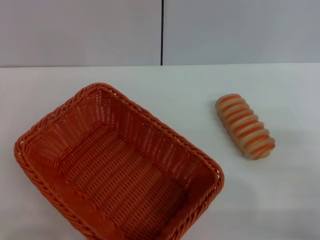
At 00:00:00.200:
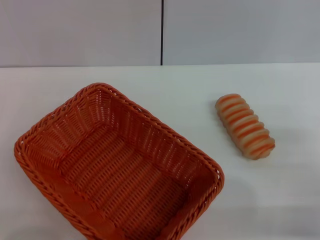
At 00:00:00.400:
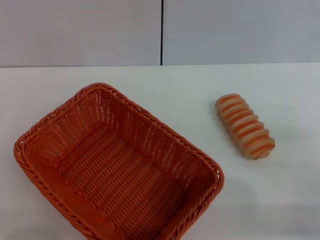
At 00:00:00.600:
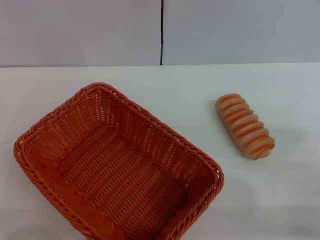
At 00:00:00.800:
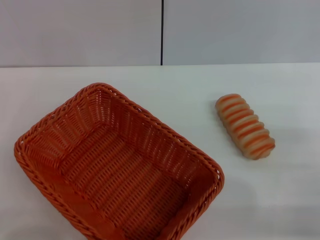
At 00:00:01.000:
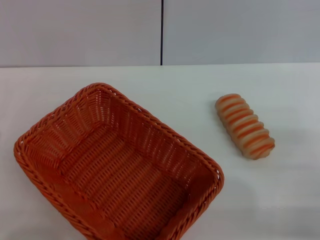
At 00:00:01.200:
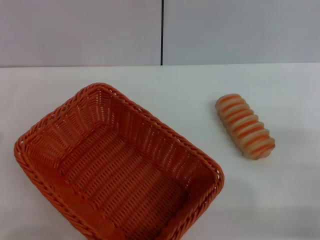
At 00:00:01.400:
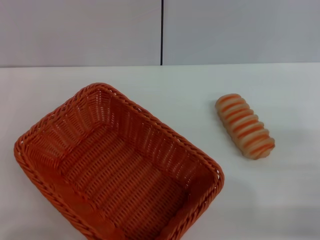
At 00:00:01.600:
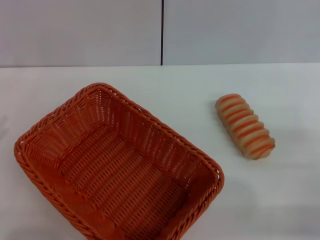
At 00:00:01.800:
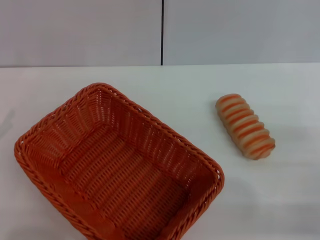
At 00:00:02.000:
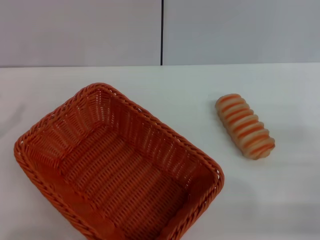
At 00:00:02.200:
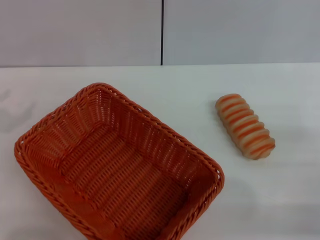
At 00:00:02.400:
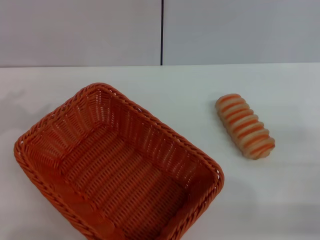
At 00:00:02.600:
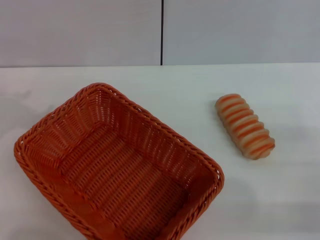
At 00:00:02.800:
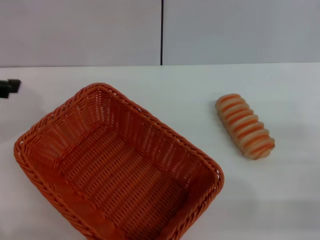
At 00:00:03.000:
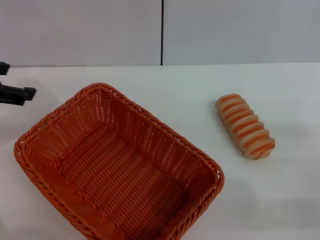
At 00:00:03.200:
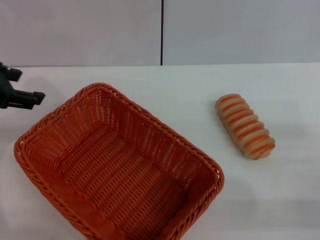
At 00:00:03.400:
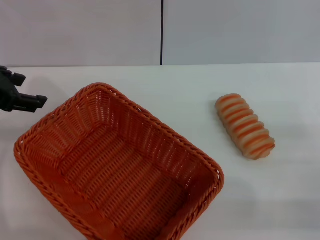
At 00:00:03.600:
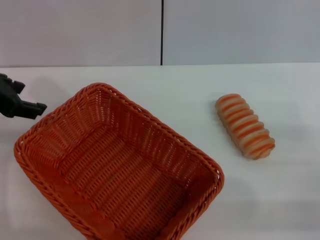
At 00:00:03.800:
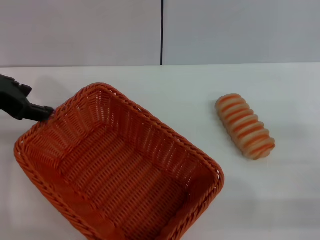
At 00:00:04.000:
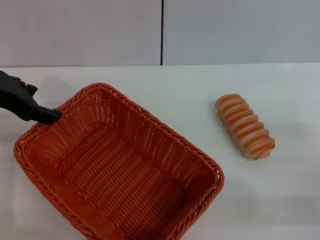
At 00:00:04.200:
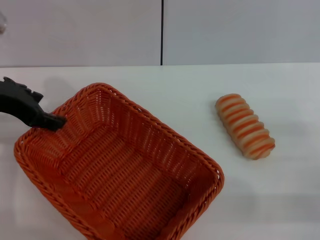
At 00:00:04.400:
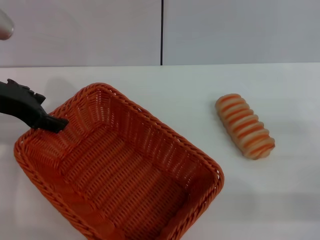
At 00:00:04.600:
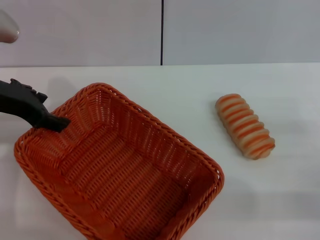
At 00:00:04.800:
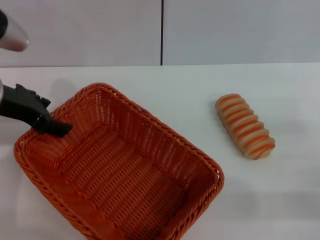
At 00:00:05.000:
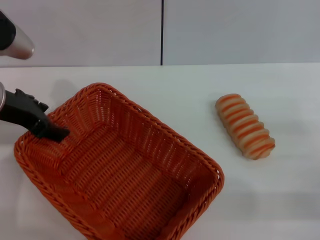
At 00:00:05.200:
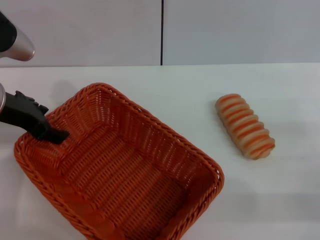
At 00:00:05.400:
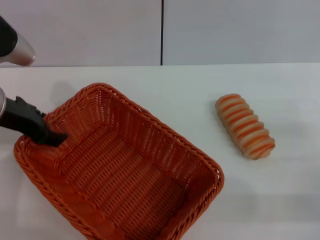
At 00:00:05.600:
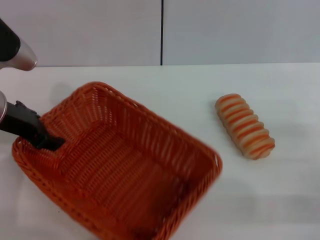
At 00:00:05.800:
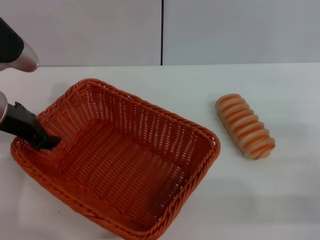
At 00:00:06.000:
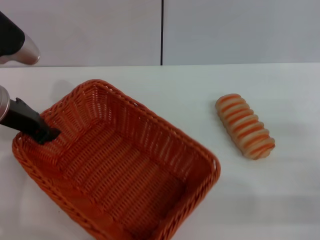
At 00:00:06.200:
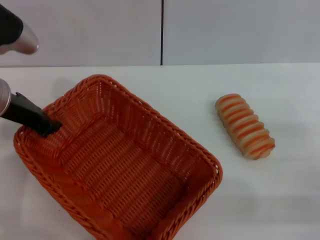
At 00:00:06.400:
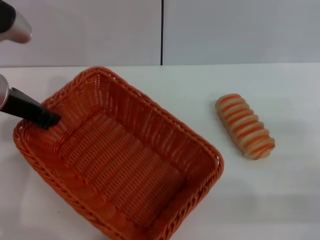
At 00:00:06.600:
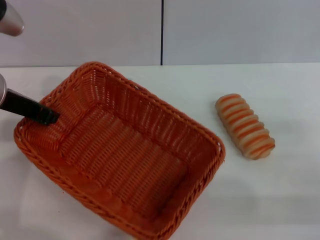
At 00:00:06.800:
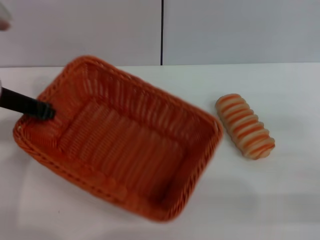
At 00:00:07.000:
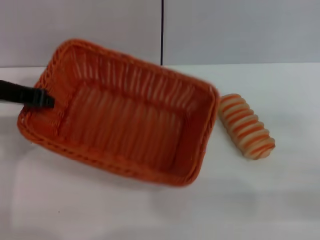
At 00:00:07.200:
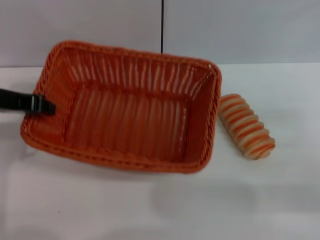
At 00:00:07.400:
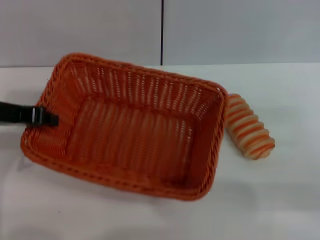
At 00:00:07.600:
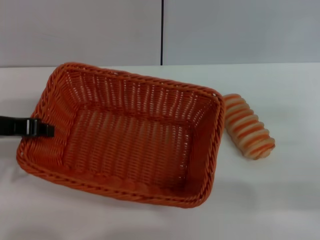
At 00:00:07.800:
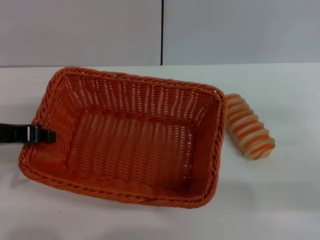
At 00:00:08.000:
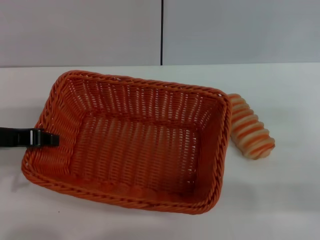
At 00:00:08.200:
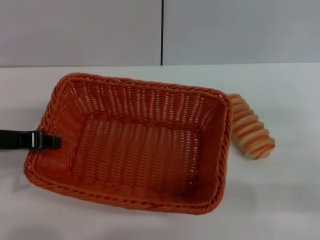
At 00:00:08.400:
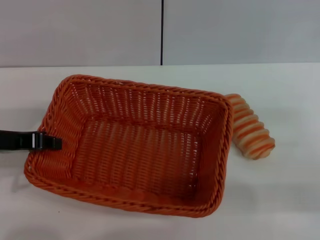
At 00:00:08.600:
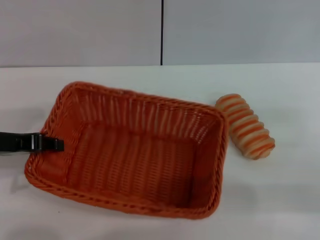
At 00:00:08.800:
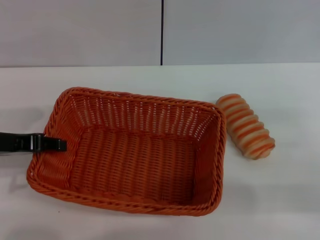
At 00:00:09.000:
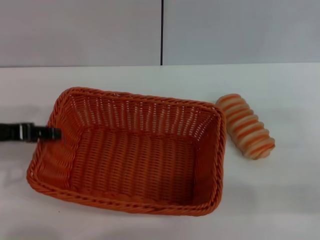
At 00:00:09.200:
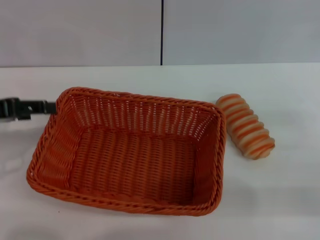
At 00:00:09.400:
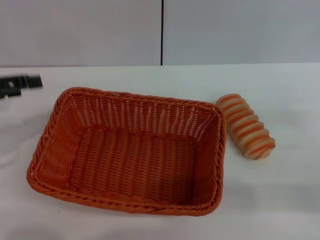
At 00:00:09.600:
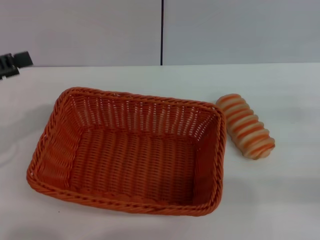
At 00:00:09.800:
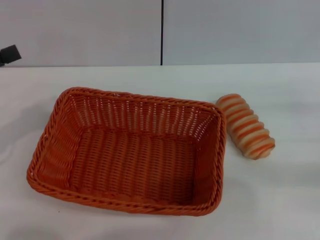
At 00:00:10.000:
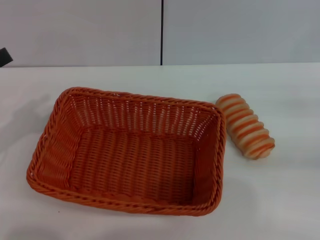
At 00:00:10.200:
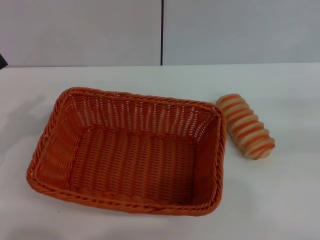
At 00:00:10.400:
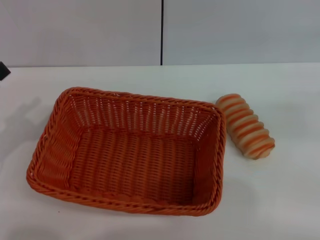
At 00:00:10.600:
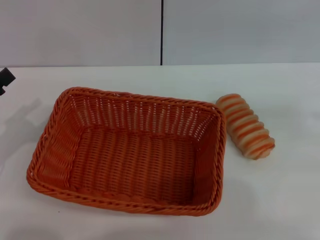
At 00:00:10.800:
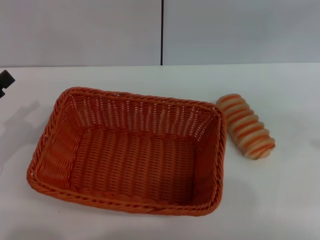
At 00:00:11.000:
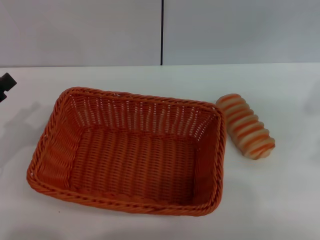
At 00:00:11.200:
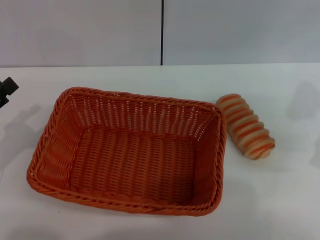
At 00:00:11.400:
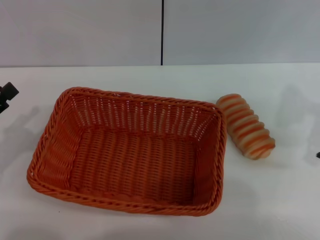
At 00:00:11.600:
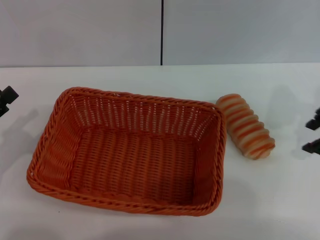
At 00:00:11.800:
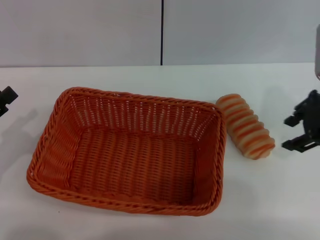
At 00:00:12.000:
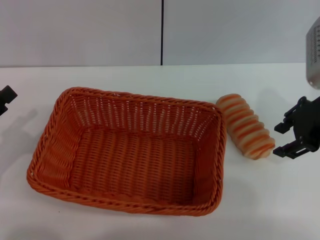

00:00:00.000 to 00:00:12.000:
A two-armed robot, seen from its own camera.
Step, 00:00:00.000 to 00:00:07.000: Pick up the light basket with the left gripper.
Step, 00:00:07.200 to 00:00:09.200: Place the light basket in the center of view with the left gripper.
00:00:01.600 to 00:00:03.000: The left gripper is displaced upward, forward and to the right by approximately 25 cm.
00:00:03.000 to 00:00:04.400: The left gripper is displaced to the right by approximately 5 cm.
00:00:04.400 to 00:00:06.000: The left gripper closes its fingers.
00:00:06.000 to 00:00:07.600: The left gripper moves roughly 5 cm, and closes its fingers.
00:00:07.600 to 00:00:09.000: The left gripper opens.
00:00:09.000 to 00:00:10.400: The left gripper goes roughly 10 cm to the left and downward, and opens up.
00:00:10.400 to 00:00:12.000: The right gripper is displaced to the left by some 20 cm.

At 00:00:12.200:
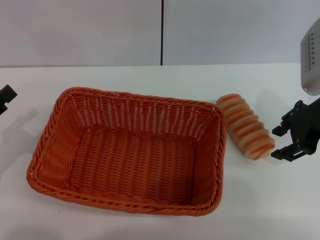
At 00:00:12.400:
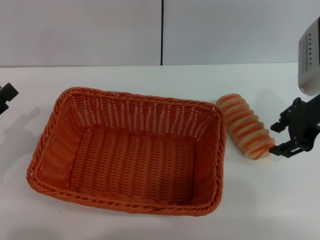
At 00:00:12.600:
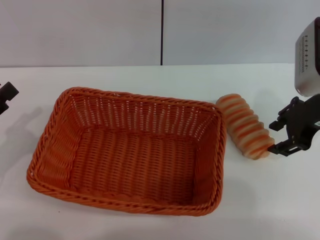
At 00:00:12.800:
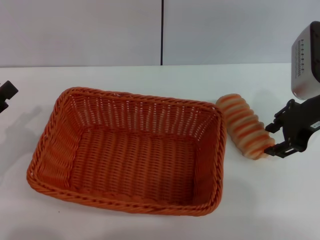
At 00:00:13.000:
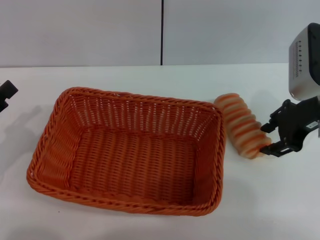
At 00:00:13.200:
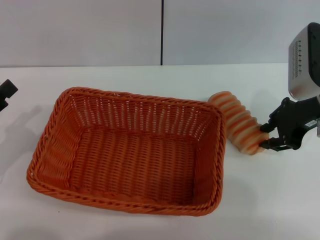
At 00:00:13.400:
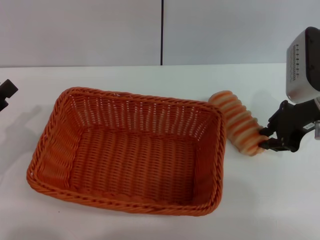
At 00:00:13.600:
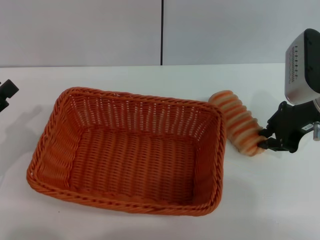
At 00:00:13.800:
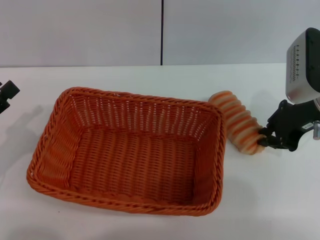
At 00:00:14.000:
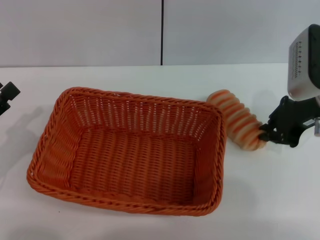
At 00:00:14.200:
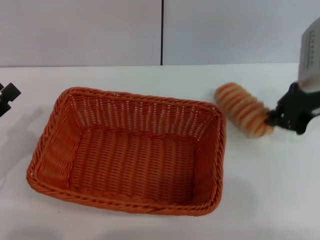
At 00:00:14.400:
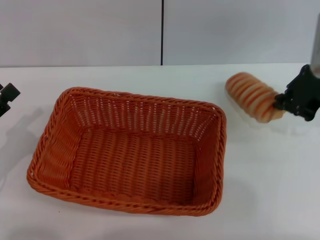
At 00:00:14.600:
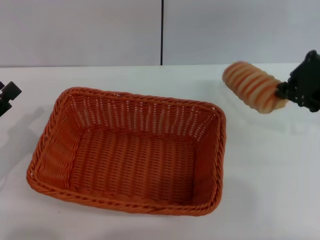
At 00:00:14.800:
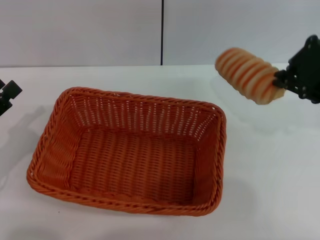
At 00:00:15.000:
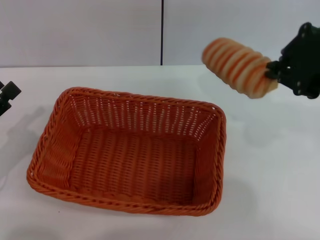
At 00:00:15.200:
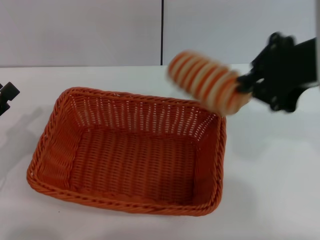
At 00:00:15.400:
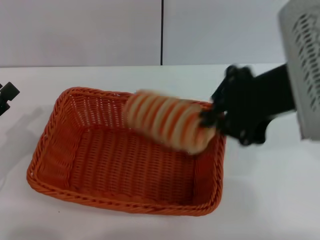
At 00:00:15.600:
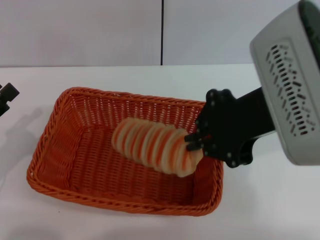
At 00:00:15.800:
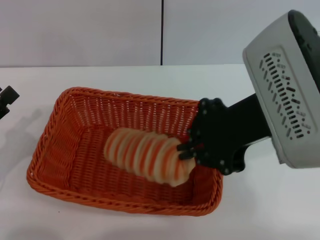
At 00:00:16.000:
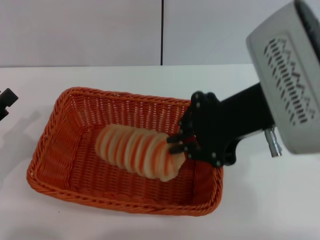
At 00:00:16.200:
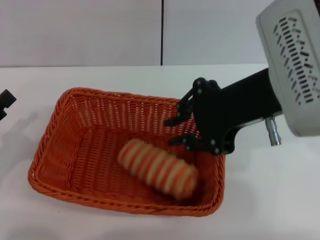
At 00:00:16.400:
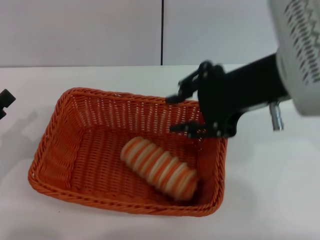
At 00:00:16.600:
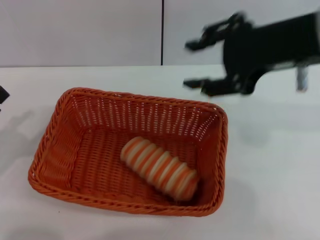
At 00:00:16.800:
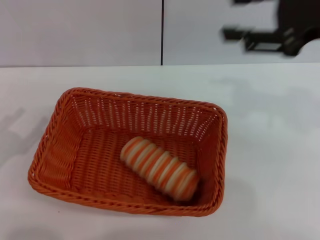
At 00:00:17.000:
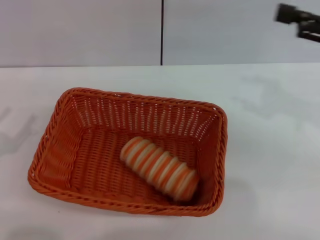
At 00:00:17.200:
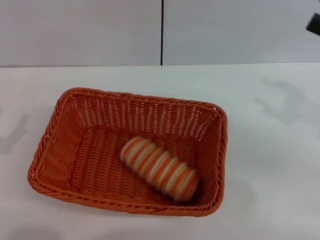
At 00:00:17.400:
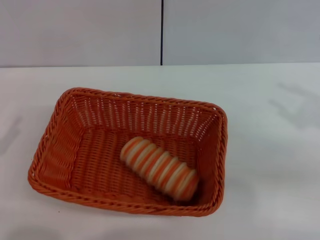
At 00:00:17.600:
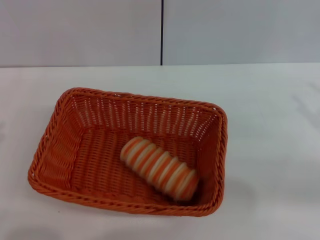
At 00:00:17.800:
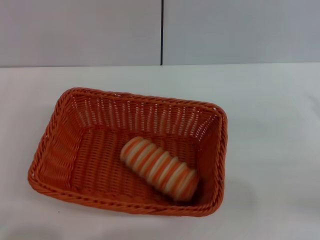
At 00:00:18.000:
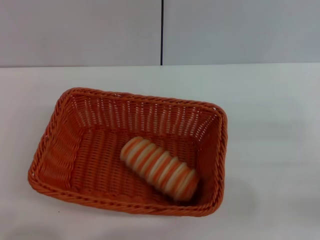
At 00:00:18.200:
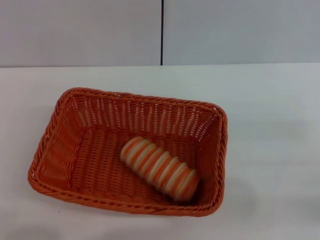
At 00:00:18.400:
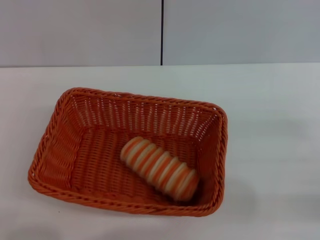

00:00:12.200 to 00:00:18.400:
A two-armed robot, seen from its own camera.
Step, 00:00:12.200 to 00:00:14.600: Pick up the long bread with the right gripper.
Step, 00:00:15.000 to 00:00:16.200: Place the long bread into the light basket with the right gripper.
00:00:12.200 to 00:00:13.800: The right gripper closes up.
00:00:13.800 to 00:00:15.400: The right gripper goes roughly 20 cm upward, backward and to the left.
00:00:15.400 to 00:00:16.800: The right gripper heads to the right, covering about 10 cm, and opens up.
00:00:16.800 to 00:00:18.400: The right gripper is displaced downward, to the right and backward by approximately 25 cm.
